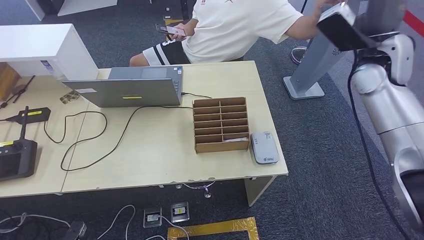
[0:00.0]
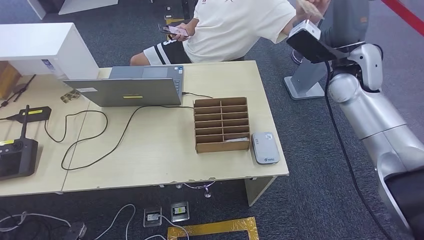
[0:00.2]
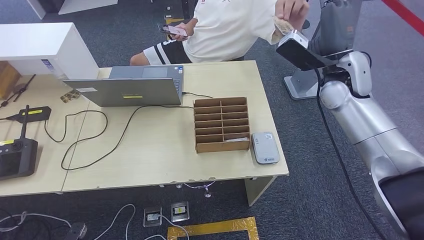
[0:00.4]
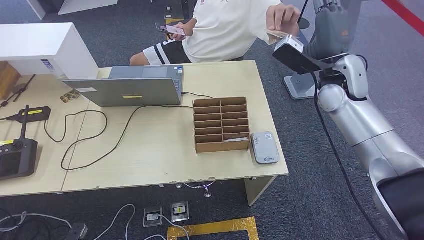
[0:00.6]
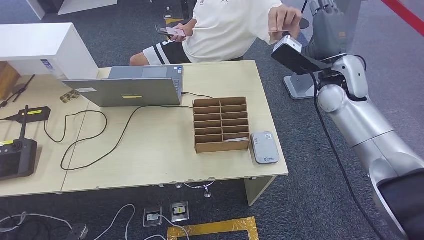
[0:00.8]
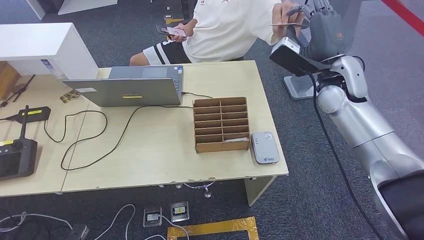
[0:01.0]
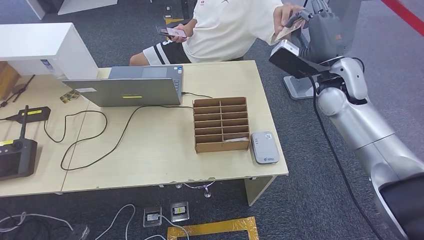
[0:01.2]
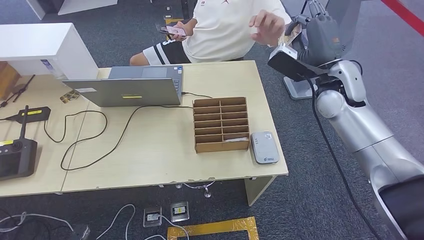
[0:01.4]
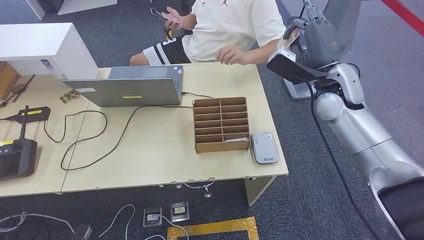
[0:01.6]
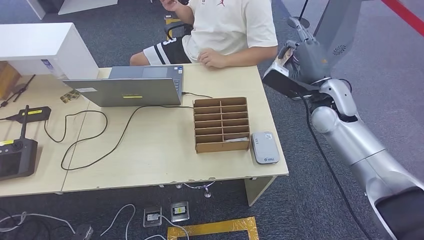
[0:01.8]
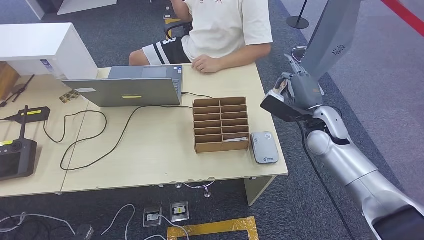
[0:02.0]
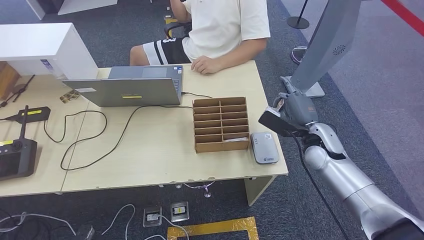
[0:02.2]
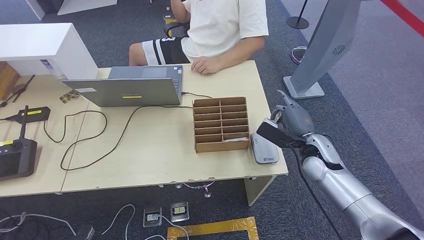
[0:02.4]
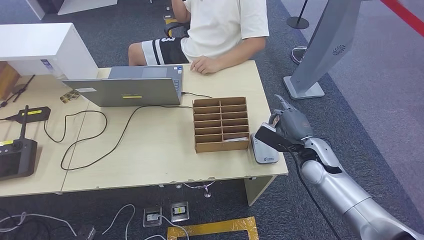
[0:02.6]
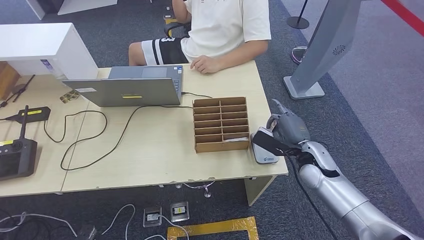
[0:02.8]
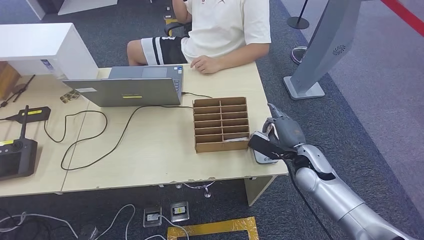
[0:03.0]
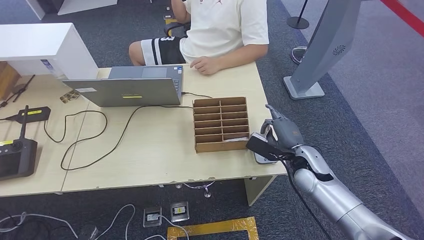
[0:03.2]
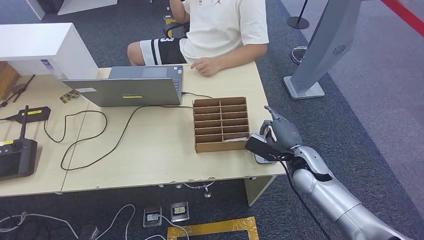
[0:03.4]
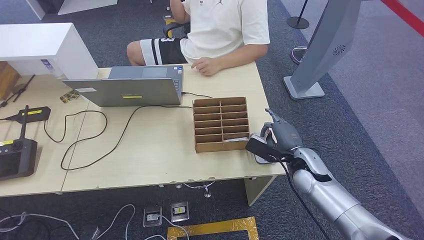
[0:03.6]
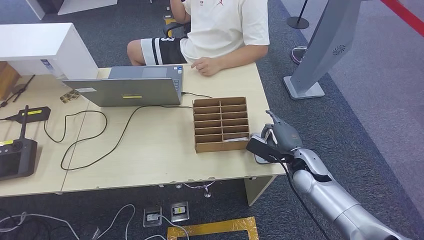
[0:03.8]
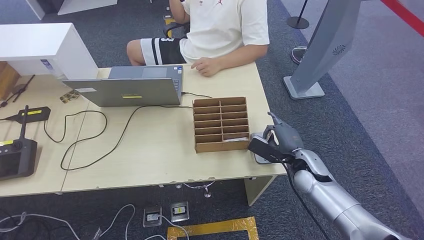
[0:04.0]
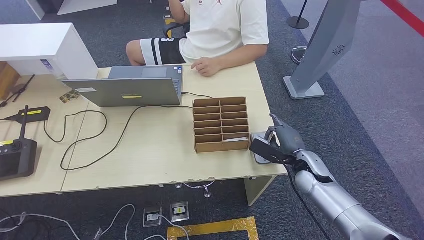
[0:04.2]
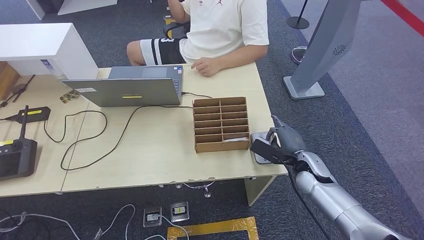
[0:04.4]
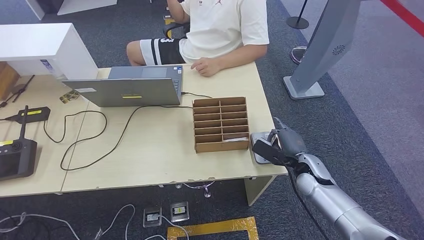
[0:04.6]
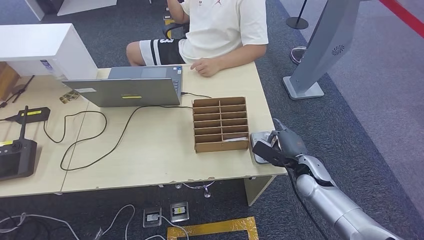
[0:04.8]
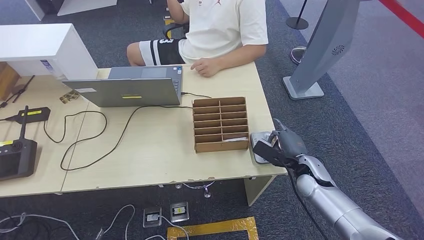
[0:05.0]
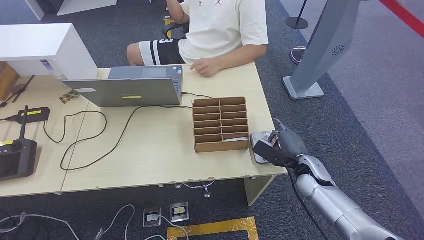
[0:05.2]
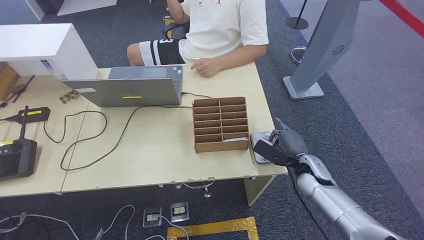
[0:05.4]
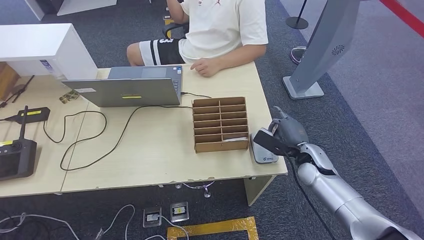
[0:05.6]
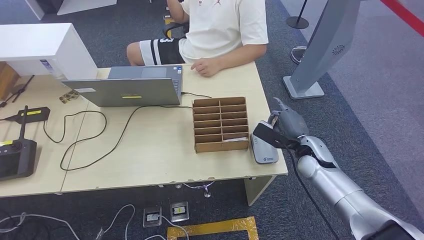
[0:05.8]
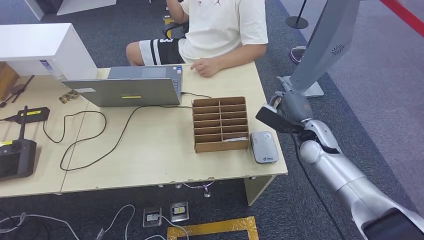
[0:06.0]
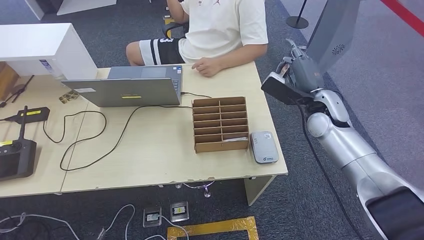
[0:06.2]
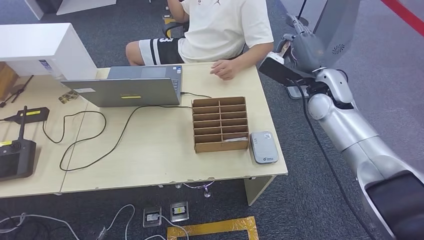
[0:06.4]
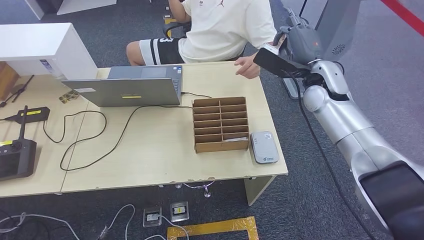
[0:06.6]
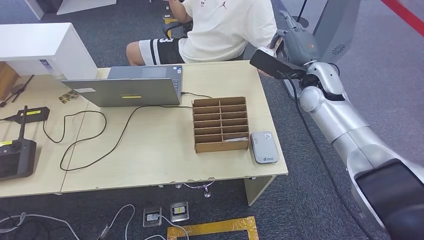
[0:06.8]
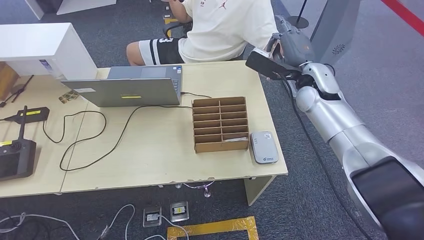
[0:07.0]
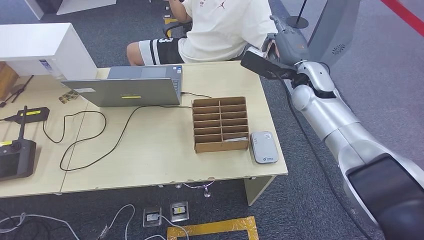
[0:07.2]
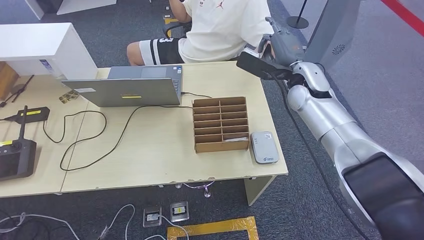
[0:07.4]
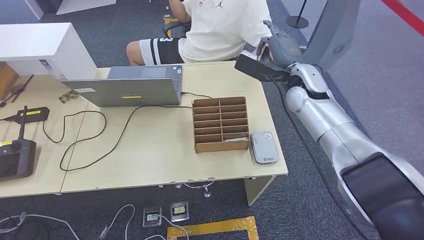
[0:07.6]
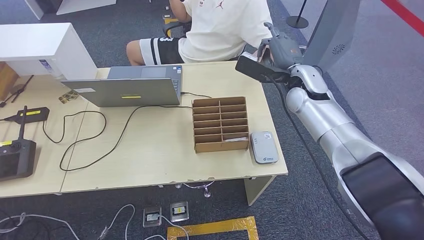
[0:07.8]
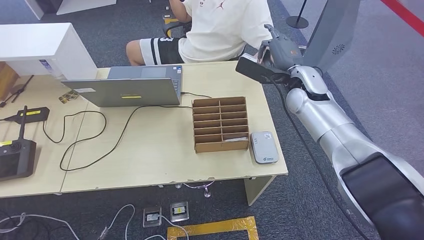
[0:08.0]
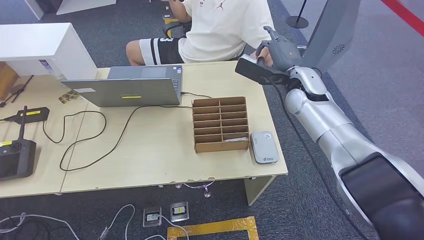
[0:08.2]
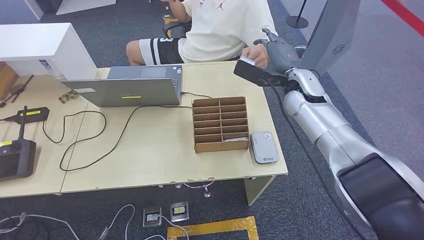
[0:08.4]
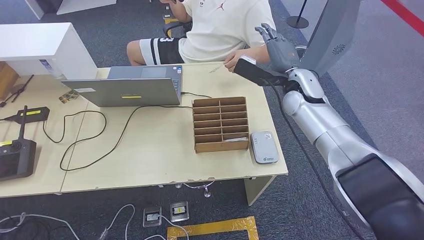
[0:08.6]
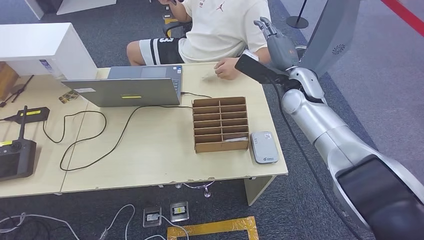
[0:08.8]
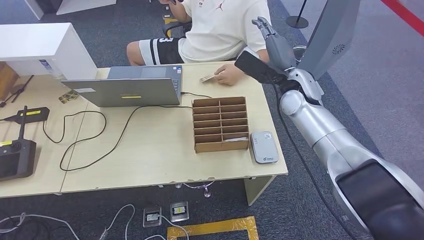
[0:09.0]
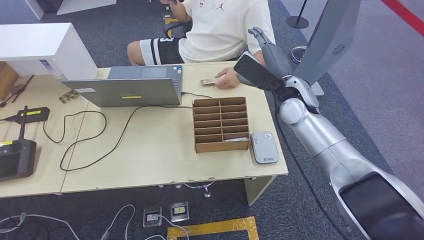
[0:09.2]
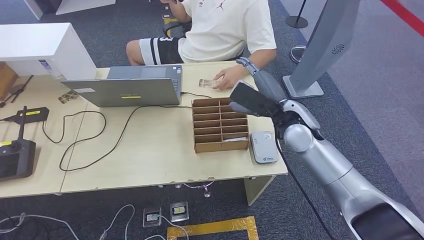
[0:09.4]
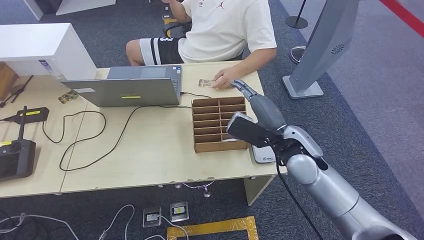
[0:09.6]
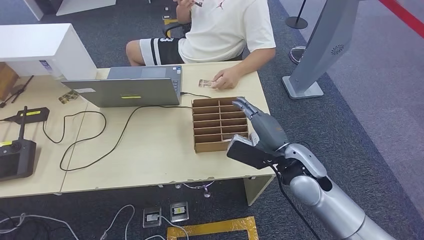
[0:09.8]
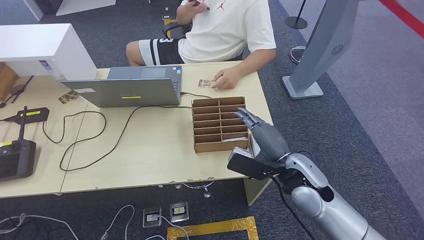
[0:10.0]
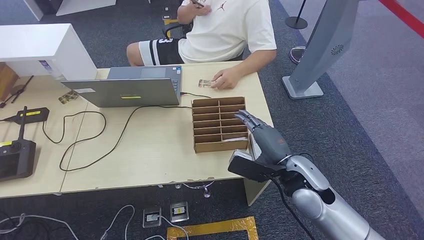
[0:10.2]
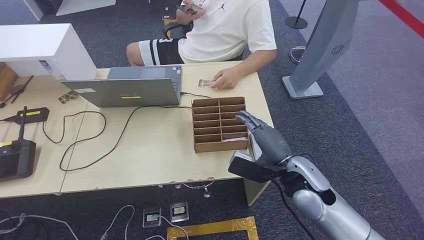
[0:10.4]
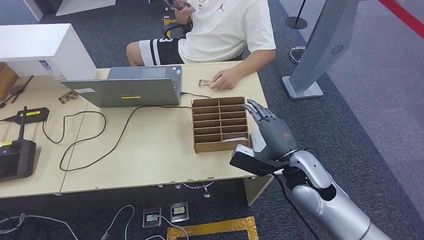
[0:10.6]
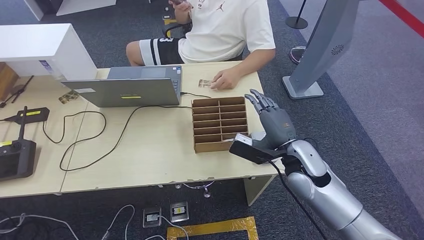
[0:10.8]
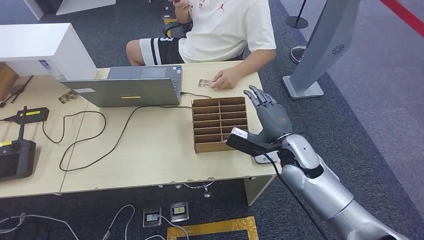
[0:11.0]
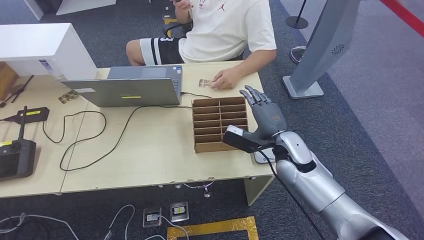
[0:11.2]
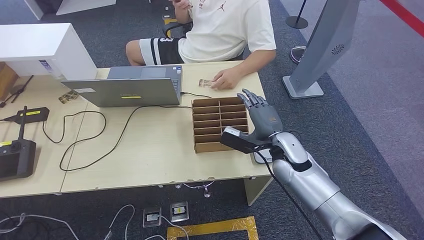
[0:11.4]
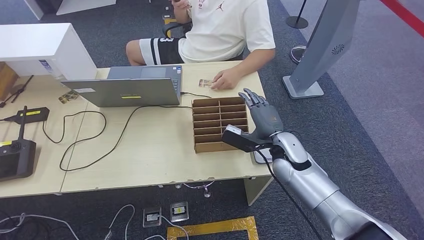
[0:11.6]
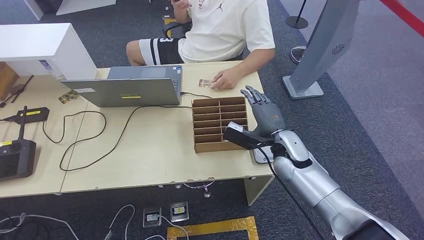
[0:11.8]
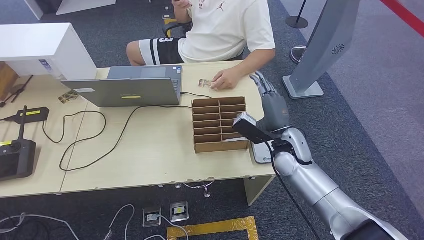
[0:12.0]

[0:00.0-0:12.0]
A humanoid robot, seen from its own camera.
Step, 0:01.8 to 0:04.8: Place the ID card on the card reader.
Step, 0:05.2 to 0:09.4: Hand the ID card to the person.
0:01.6 to 0:03.0: The right hand shifts approximately 20 cm downward and backward.
0:03.0 to 0:04.4: The hands make only small movements.
0:04.4 to 0:06.0: The right hand is displaced upward and forward by approximately 10 cm.
0:06.0 to 0:07.6: The right hand goes approximately 15 cm upward, forward and to the left.
0:07.6 to 0:09.0: There are only small adjustments of the hands.
0:09.0 to 0:10.4: The right hand moves backward and downward, some 20 cm.
0:10.4 to 0:12.0: The right hand heads forward, covering roughly 10 cm.

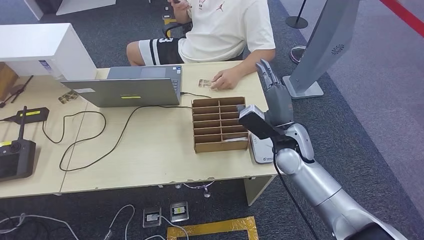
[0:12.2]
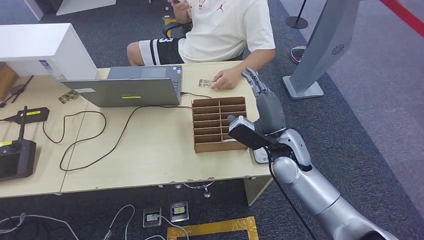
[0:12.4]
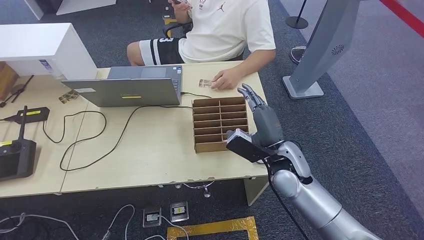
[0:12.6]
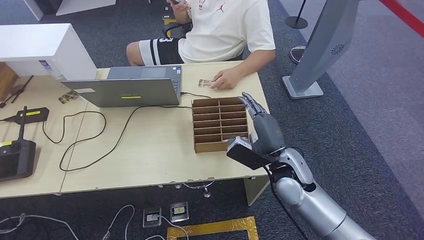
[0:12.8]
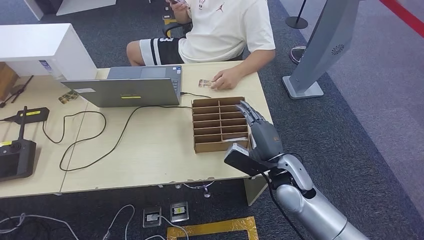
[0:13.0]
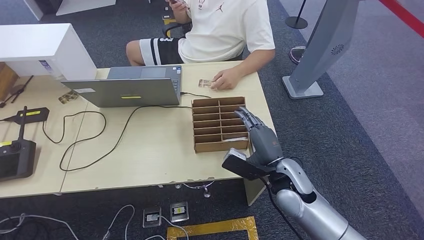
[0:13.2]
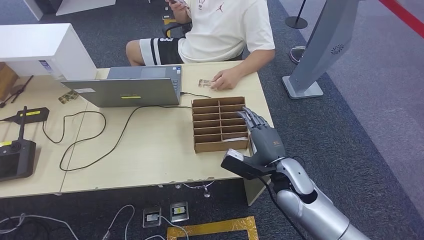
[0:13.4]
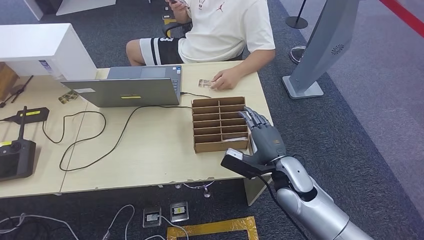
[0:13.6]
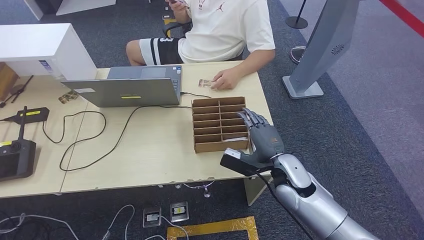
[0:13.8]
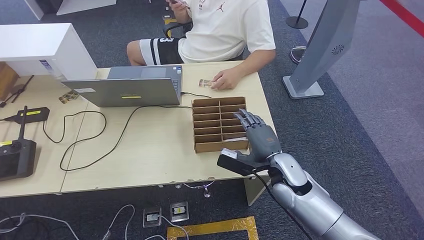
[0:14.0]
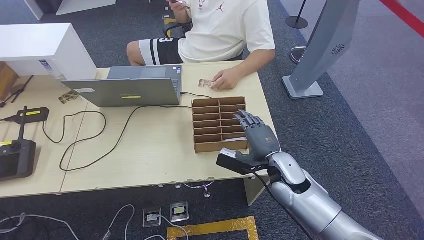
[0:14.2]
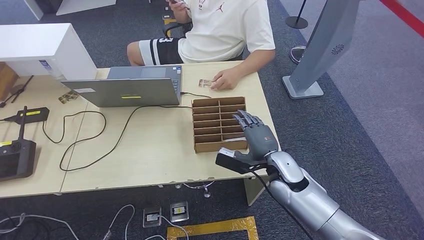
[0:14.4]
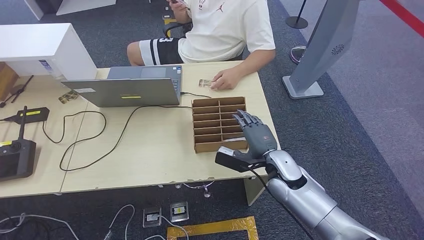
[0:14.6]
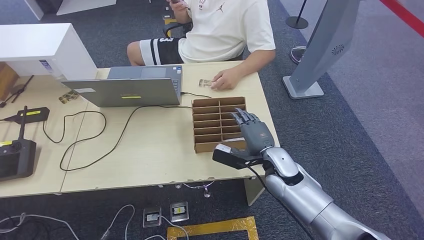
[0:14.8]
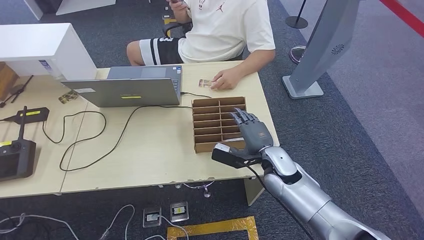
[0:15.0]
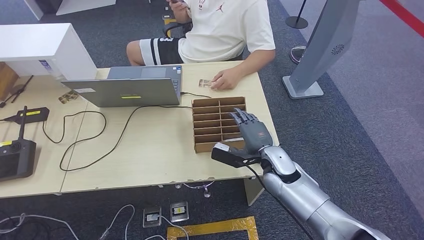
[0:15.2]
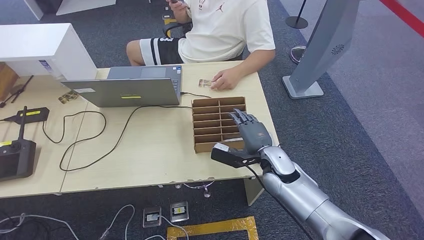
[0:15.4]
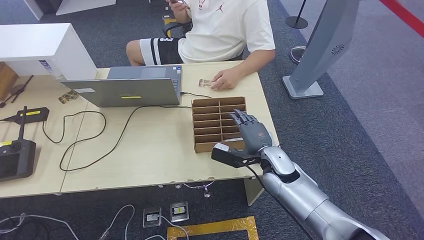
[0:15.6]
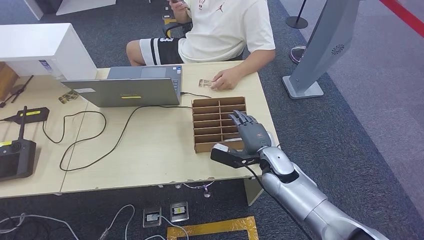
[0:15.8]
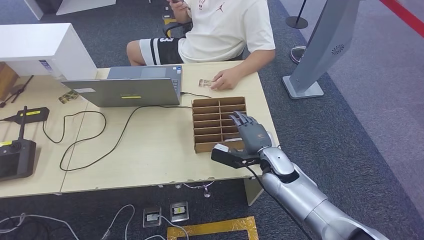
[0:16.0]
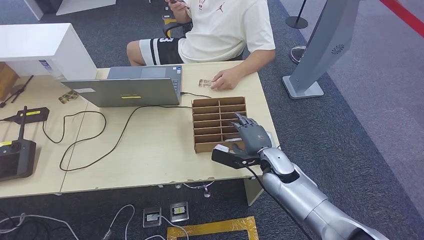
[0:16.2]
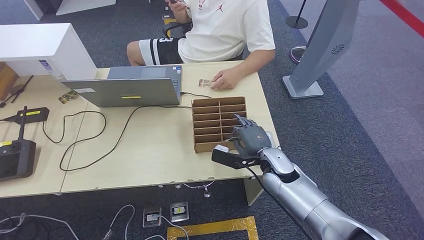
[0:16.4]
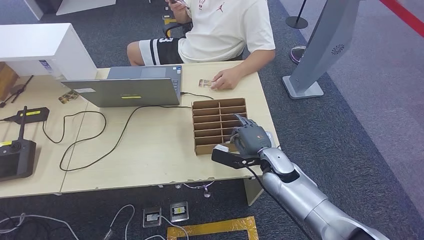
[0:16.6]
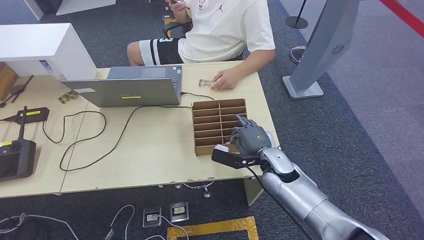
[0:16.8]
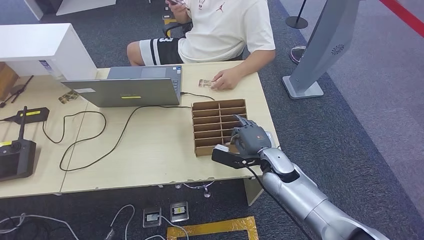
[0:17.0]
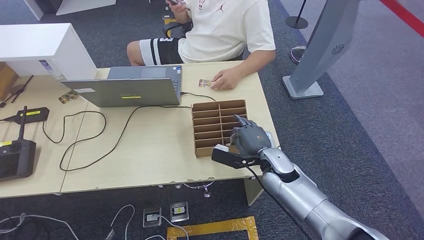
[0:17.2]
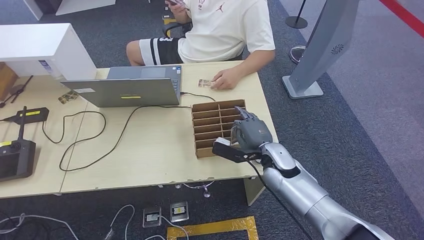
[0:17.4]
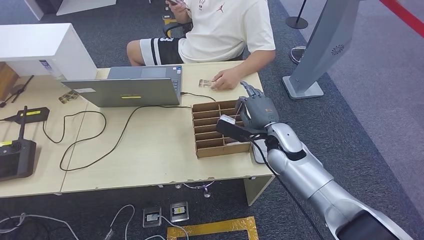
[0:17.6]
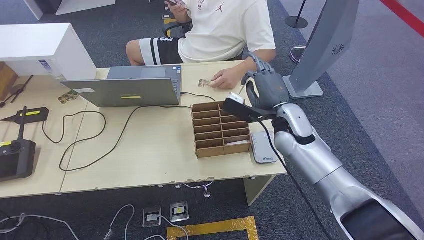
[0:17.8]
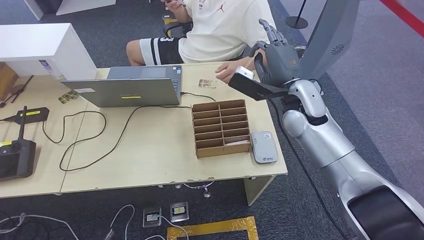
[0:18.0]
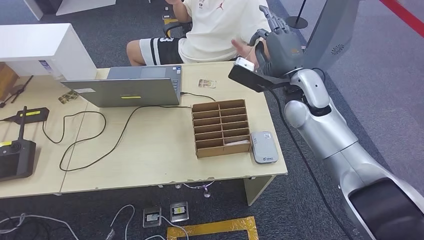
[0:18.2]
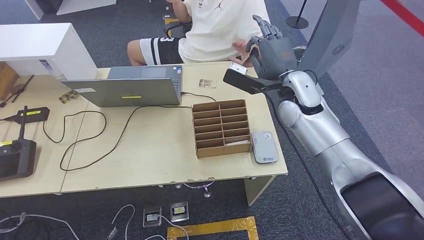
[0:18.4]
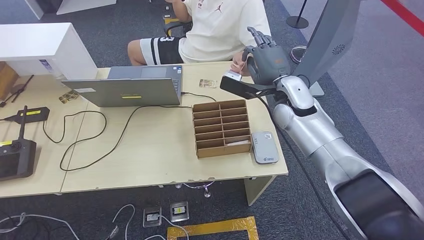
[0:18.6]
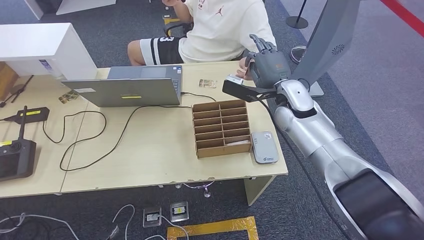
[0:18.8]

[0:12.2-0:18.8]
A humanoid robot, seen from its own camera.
Step, 0:12.2 to 0:18.0: Pick up the room key from the key card box.
0:12.2 to 0:13.8: The right hand is displaced backward and downward by about 5 cm.
0:13.8 to 0:17.2: The hands make only small movements.
0:17.2 to 0:18.8: The right hand shifts roughly 20 cm upward and forward.
